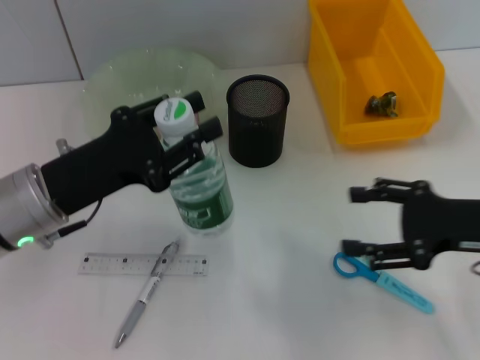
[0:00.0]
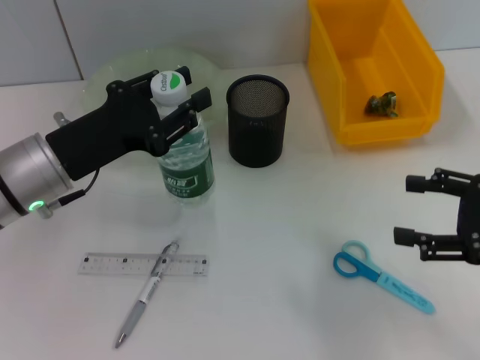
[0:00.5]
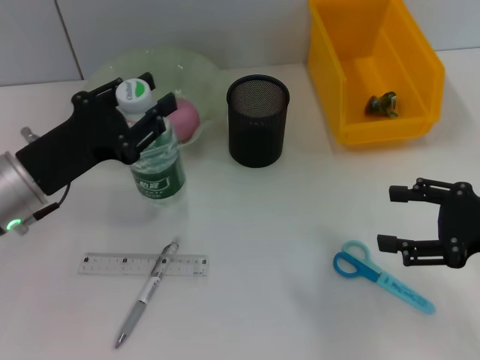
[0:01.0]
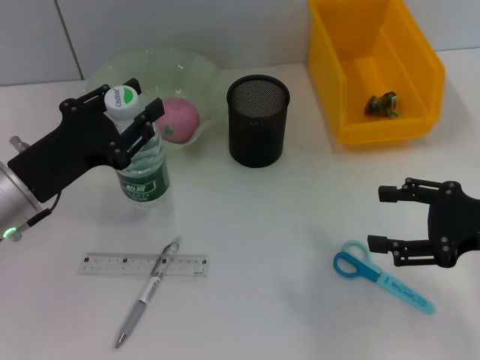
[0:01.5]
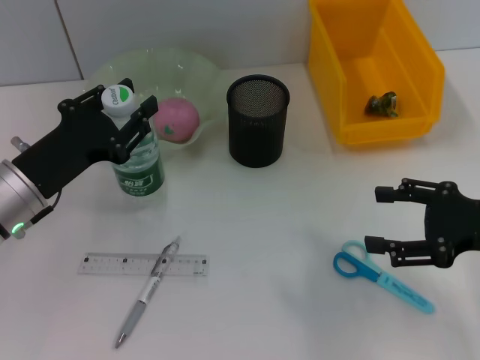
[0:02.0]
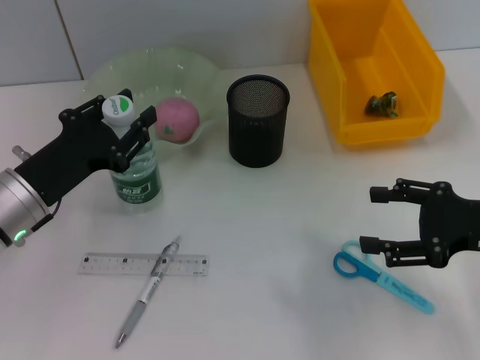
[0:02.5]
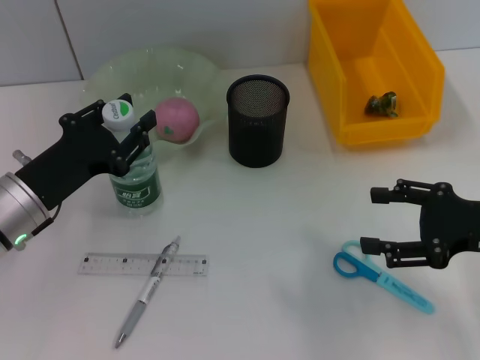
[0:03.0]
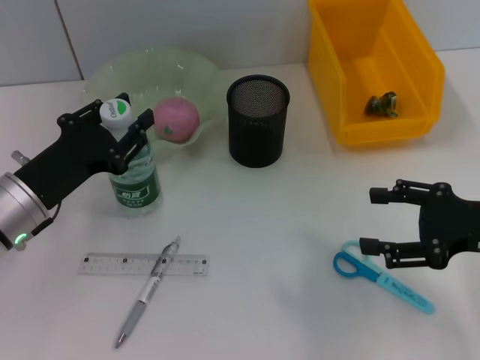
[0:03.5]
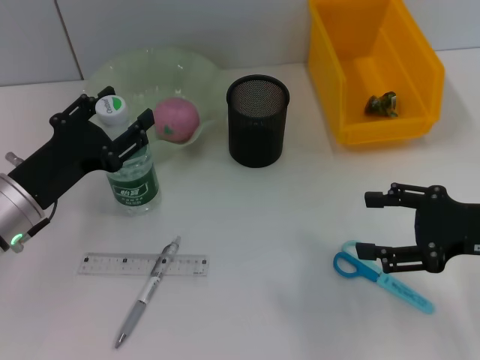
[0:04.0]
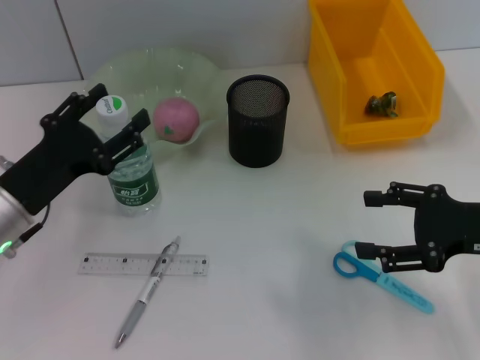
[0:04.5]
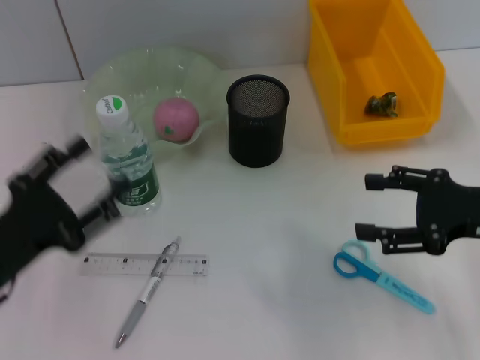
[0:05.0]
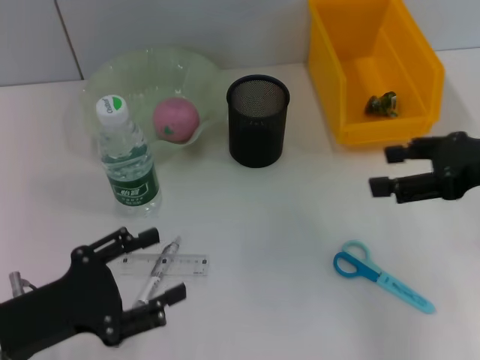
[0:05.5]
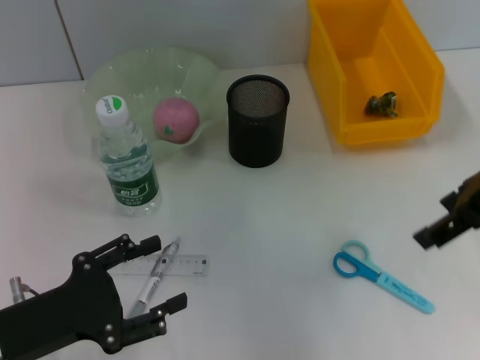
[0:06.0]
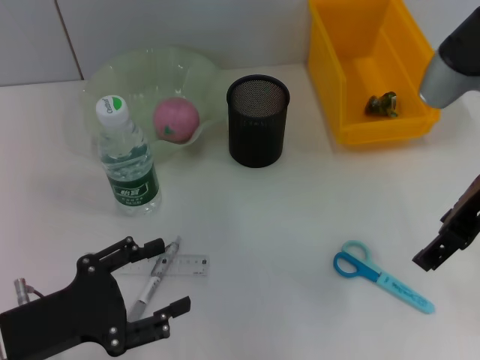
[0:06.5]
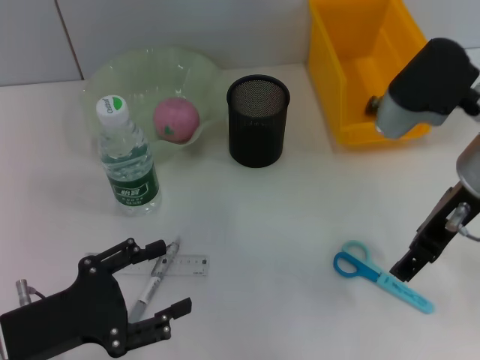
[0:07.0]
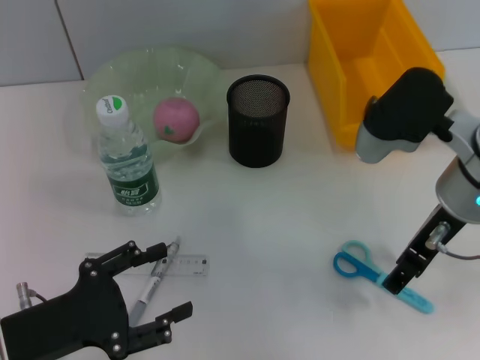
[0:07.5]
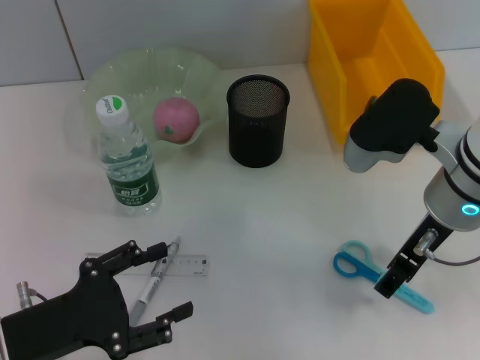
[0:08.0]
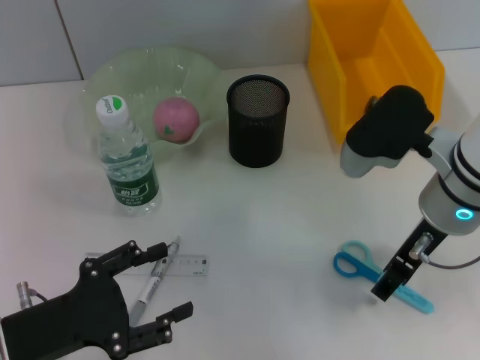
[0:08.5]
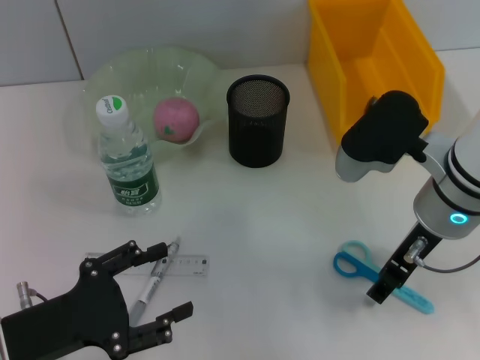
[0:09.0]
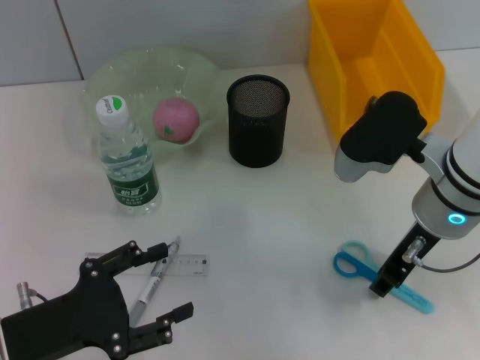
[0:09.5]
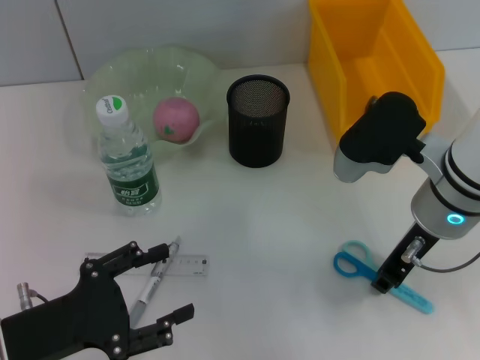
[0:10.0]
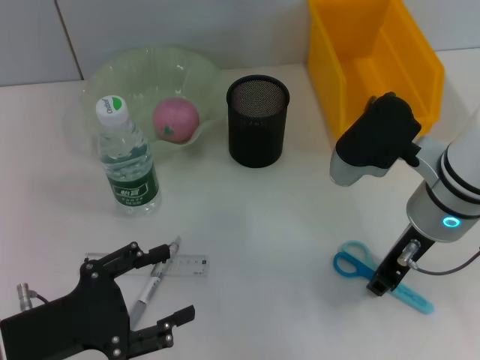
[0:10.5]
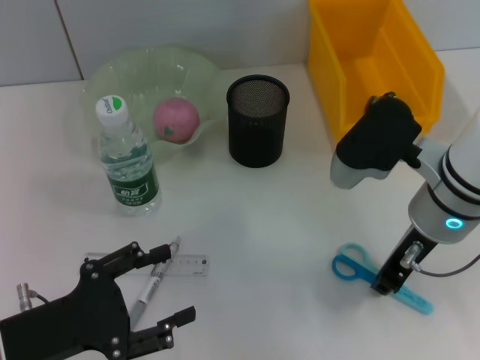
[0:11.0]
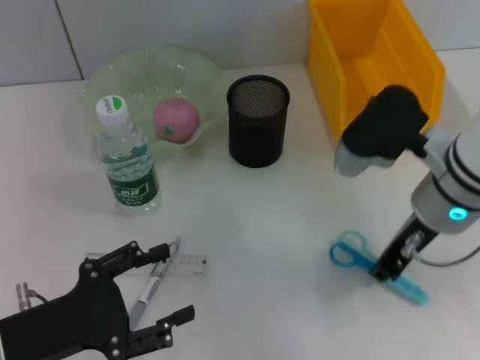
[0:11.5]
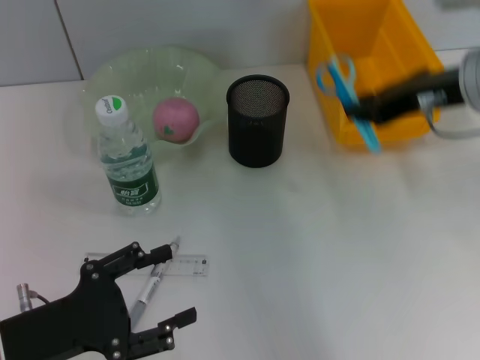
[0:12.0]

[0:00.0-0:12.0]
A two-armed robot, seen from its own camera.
Step, 0.0 to 5.0 s: Place the water bottle on the table with the left hand.
Step, 5.5 to 11.0 s: Grab the blue scissors with the right hand.
2.0 to 4.0 s: The grippers make only small movements.
4.0 to 6.0 s: The right gripper is displaced upward by roughly 15 cm, while the left gripper is displaced backward by approximately 10 cm.
6.0 to 8.0 s: The right gripper shifts some 10 cm downward and to the left.
8.0 to 10.0 s: The right gripper closes up.
10.0 to 12.0 s: The right gripper goes approximately 10 cm upward.

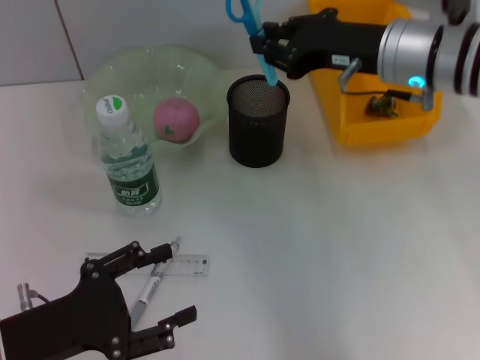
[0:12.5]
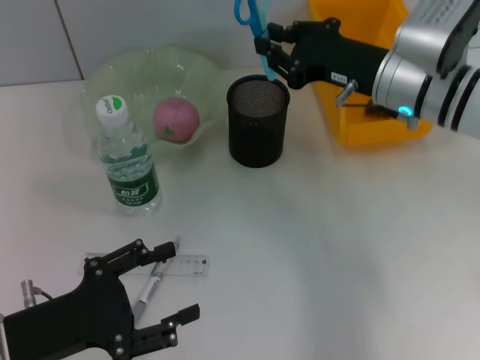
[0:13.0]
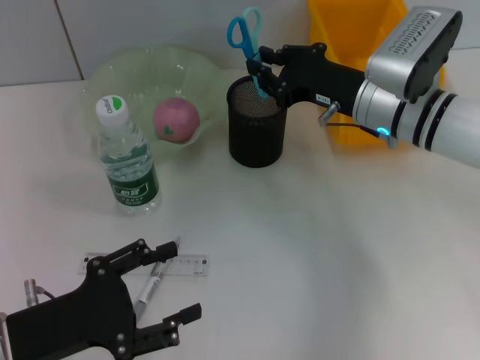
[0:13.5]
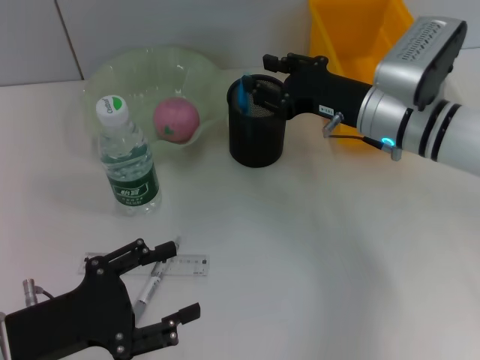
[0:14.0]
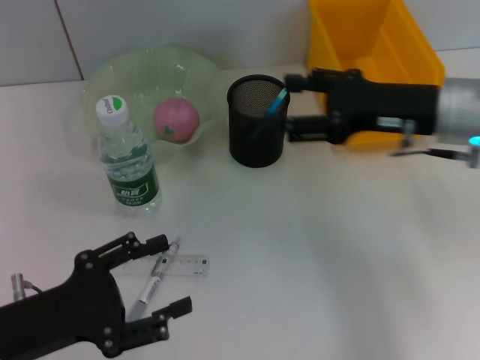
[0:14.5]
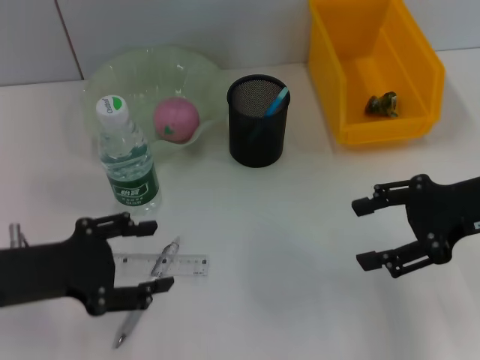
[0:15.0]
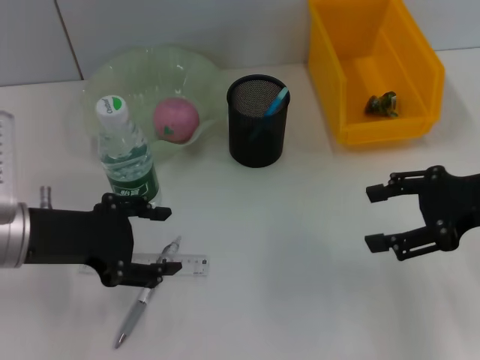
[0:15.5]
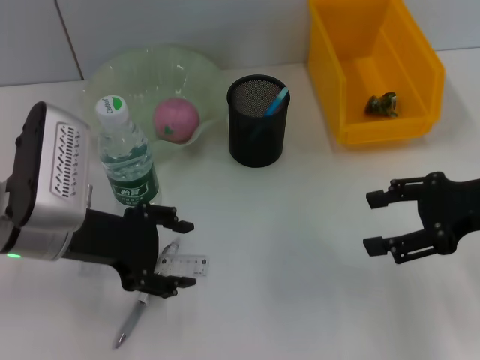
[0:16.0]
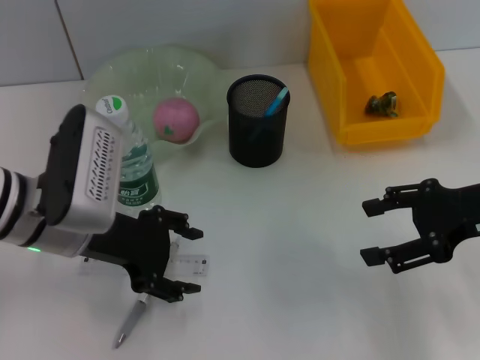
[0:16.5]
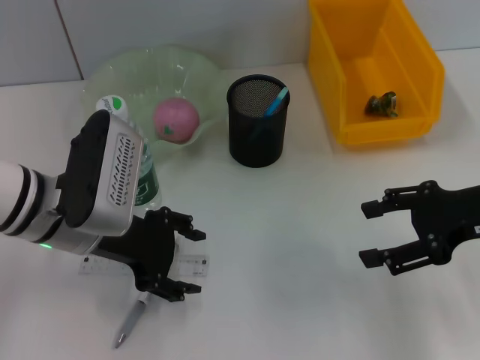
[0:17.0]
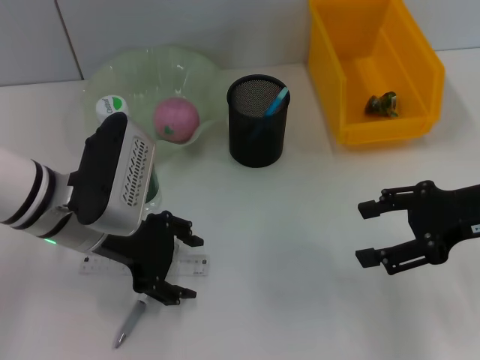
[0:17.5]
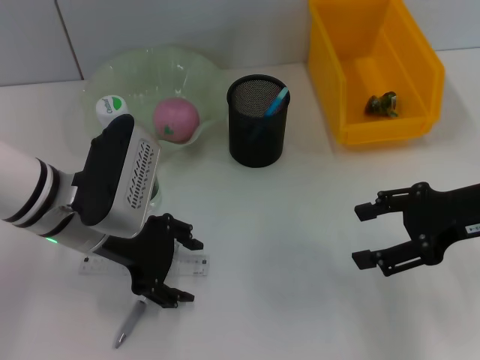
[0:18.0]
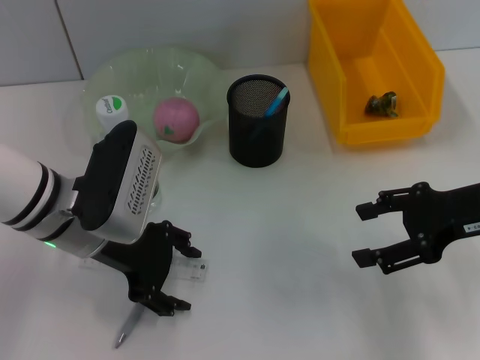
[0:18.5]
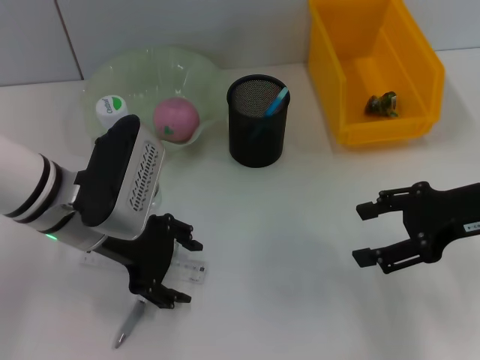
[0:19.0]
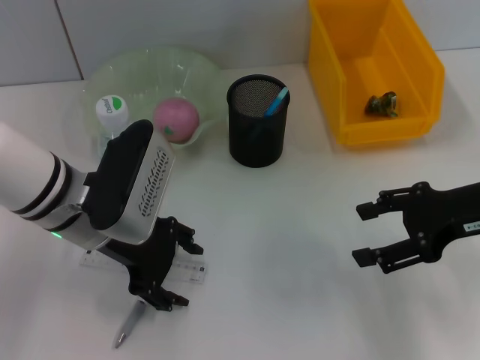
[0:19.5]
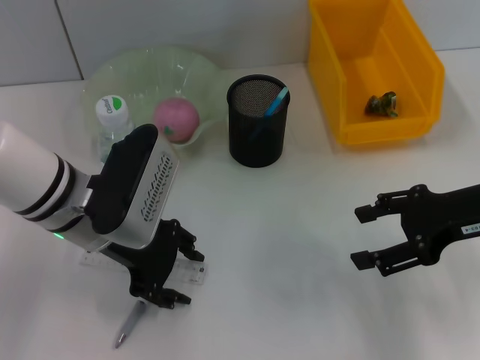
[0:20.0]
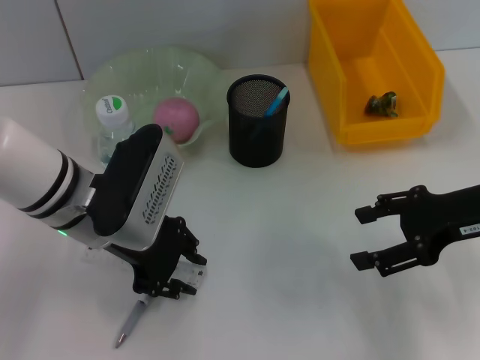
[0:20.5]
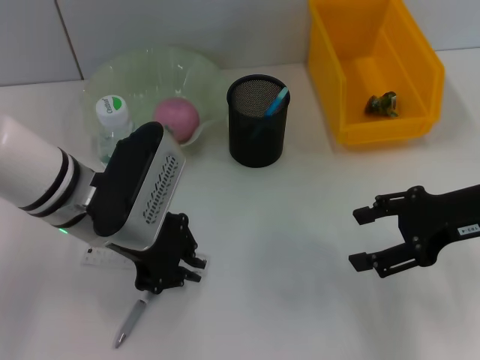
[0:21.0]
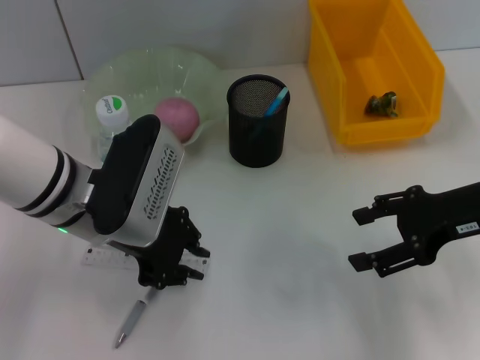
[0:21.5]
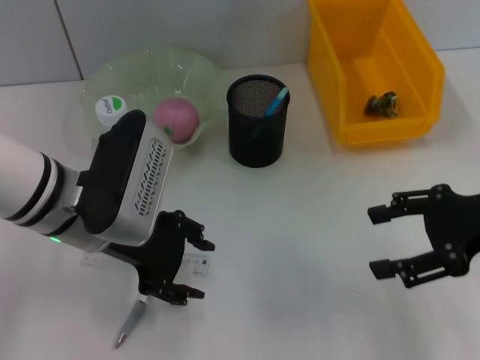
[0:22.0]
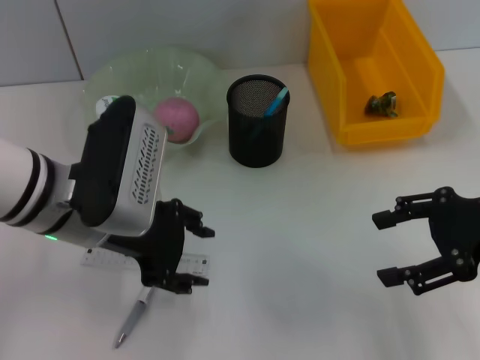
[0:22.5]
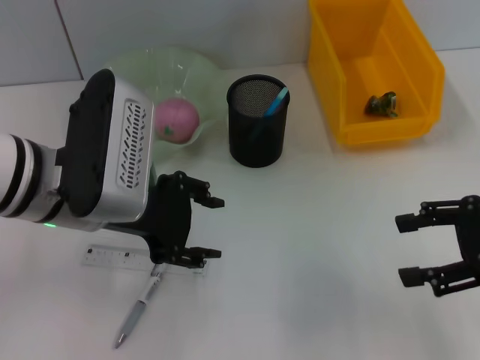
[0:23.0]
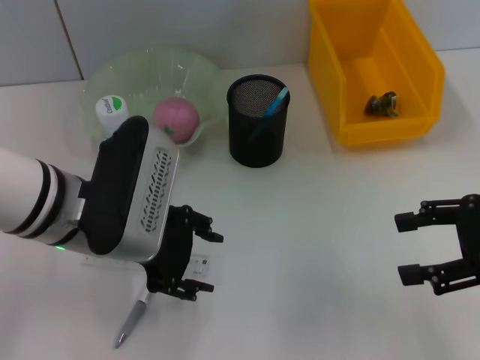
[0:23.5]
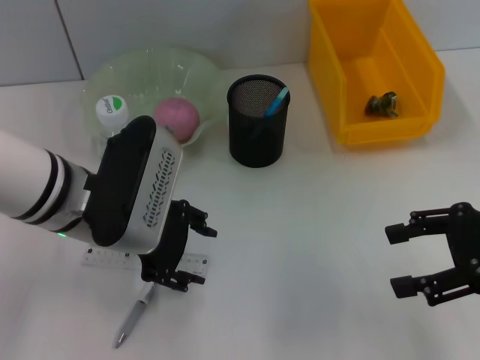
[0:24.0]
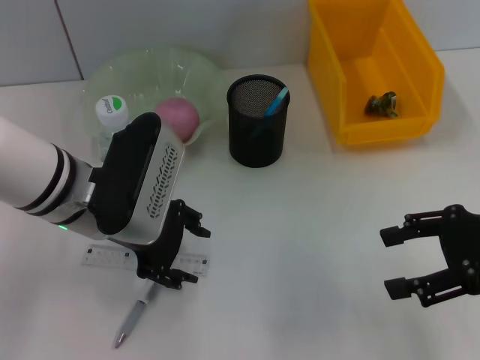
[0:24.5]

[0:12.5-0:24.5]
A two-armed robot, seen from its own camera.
Step, 12.5 to 14.0 s: Place the blue scissors into the pen holder with the right hand.
Step, 14.5 to 21.0 s: Grab the ruler with the left hand.
12.5 to 14.5 s: The right gripper moves roughly 10 cm downward and comes back, and opens.
14.5 to 16.5 s: The left gripper goes approximately 15 cm forward, to the right and upward. The right gripper shifts roughly 10 cm to the right and backward.
16.5 to 18.5 s: The grippers make only small movements.
18.5 to 20.5 s: The left gripper closes.
20.5 to 22.5 s: The left gripper closes, then opens again.
22.5 to 24.5 s: The grippers make only small movements.

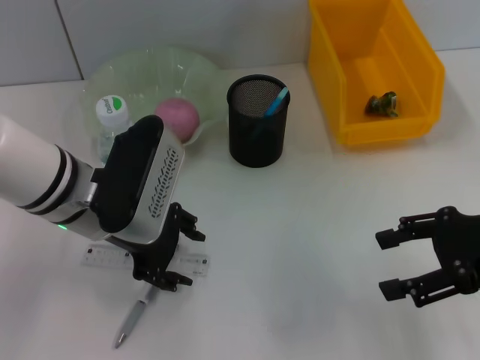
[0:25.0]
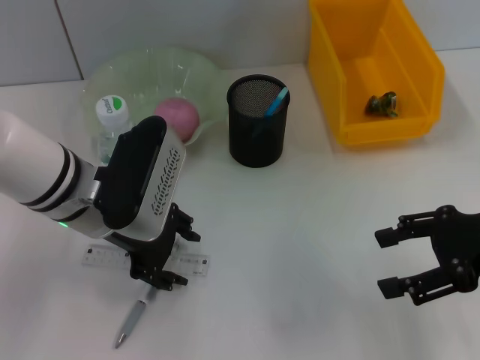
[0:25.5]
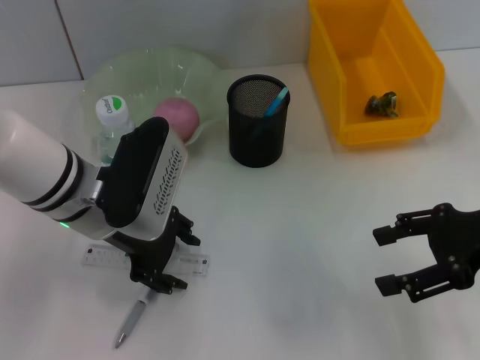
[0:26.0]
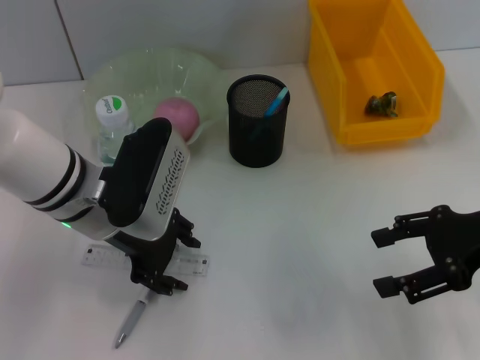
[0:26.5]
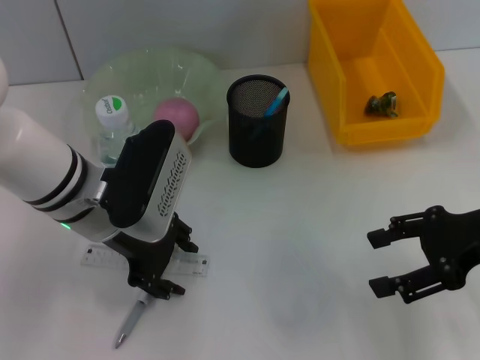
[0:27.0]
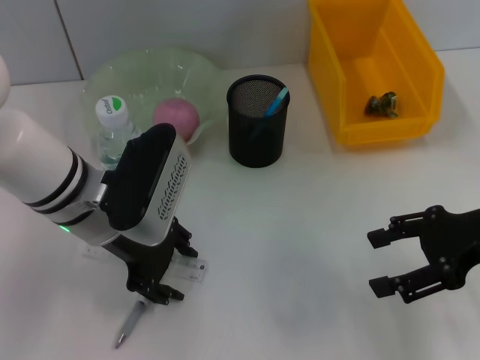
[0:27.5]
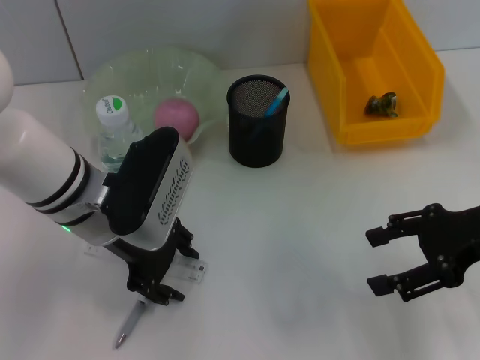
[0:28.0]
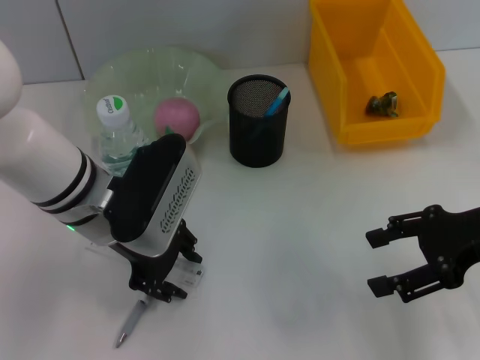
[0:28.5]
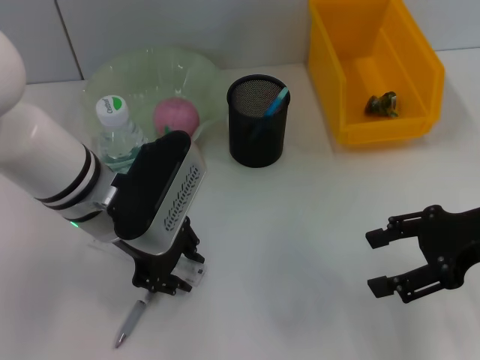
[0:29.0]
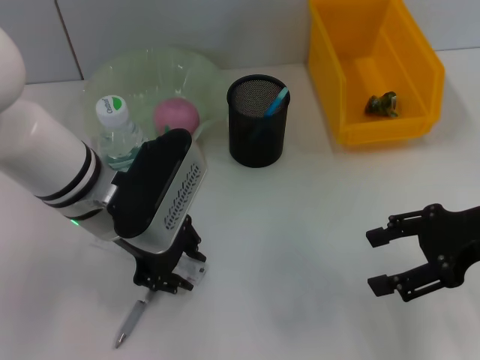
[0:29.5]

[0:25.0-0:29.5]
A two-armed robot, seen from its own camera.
25.0 to 27.0 s: There are only small adjustments of the grippers.
27.0 to 29.5 s: The left gripper closes.
